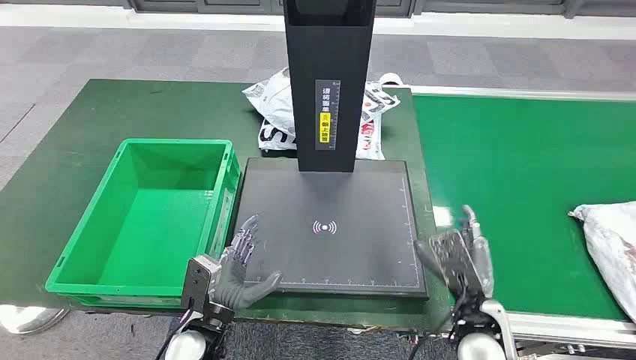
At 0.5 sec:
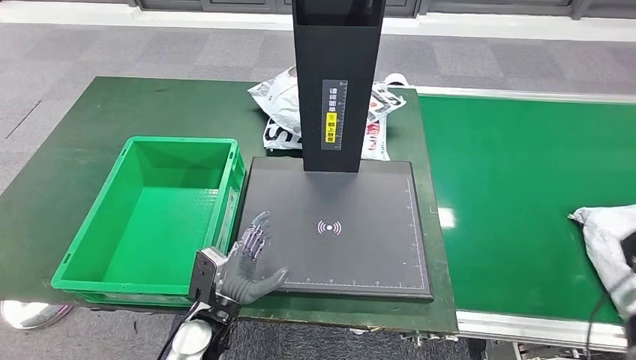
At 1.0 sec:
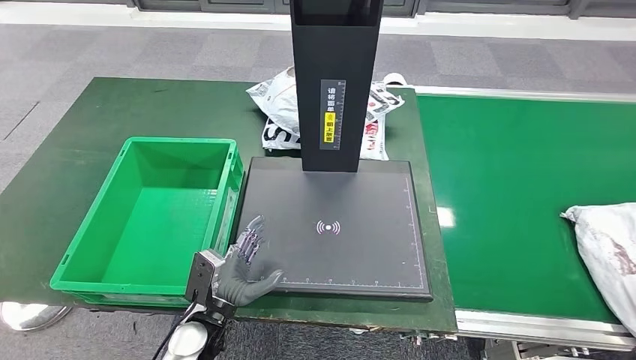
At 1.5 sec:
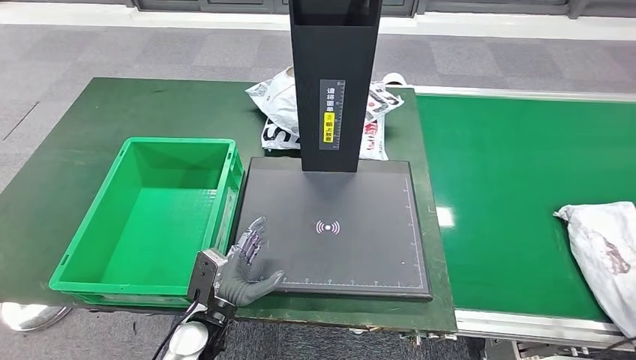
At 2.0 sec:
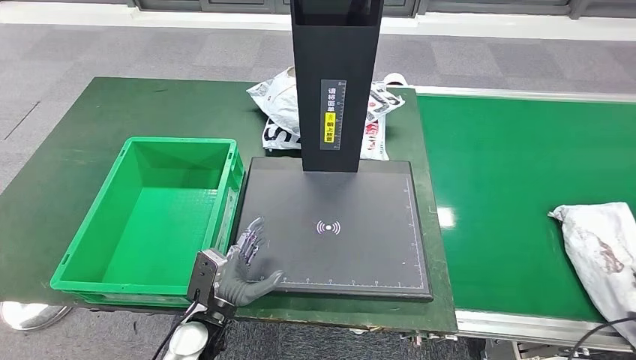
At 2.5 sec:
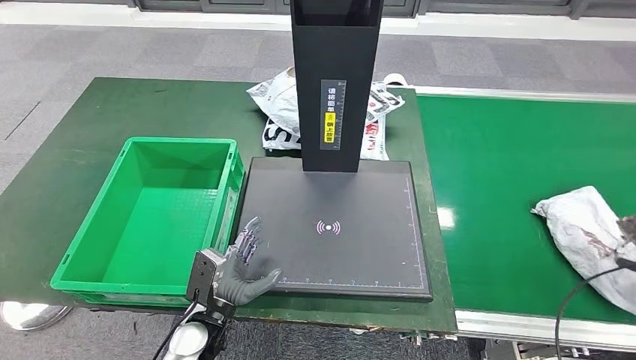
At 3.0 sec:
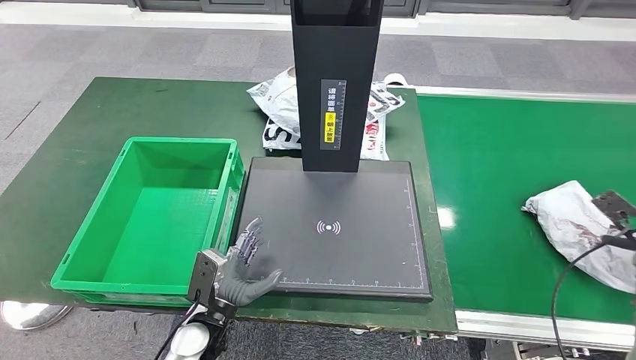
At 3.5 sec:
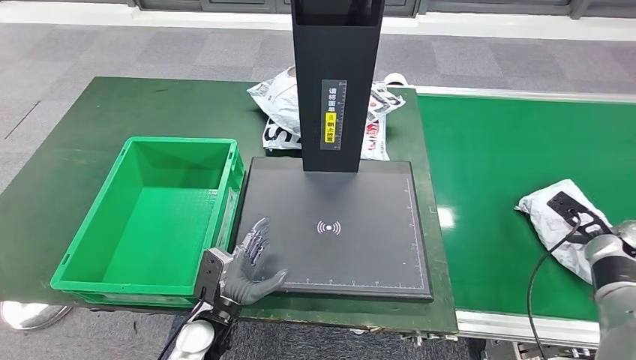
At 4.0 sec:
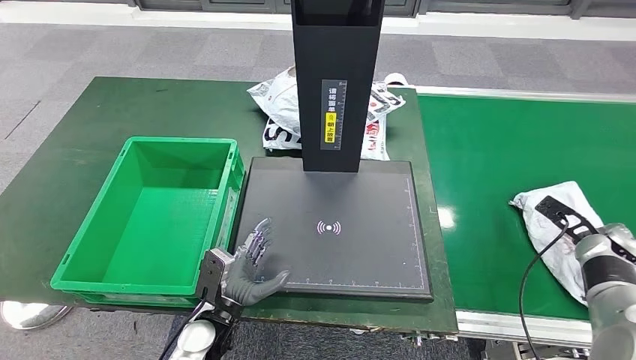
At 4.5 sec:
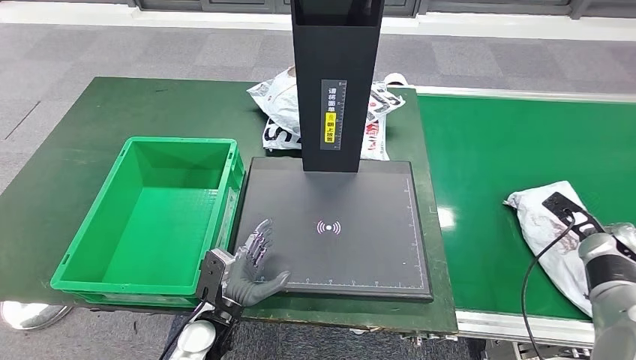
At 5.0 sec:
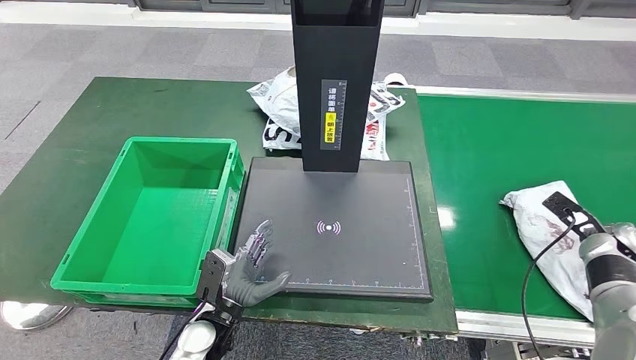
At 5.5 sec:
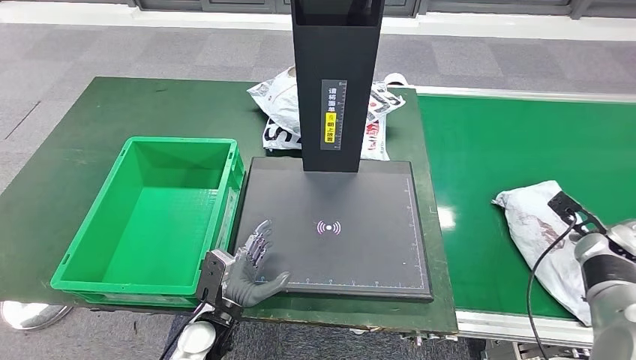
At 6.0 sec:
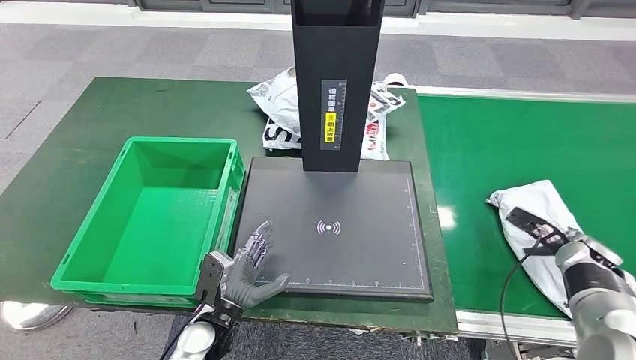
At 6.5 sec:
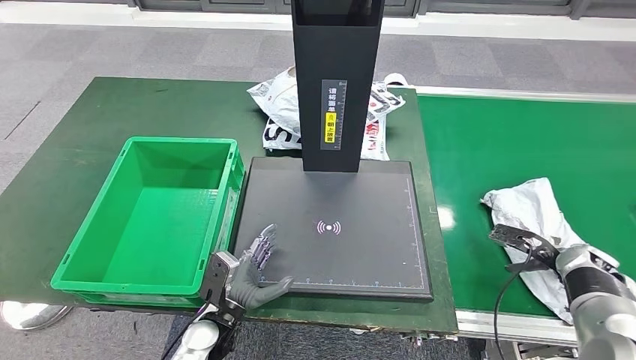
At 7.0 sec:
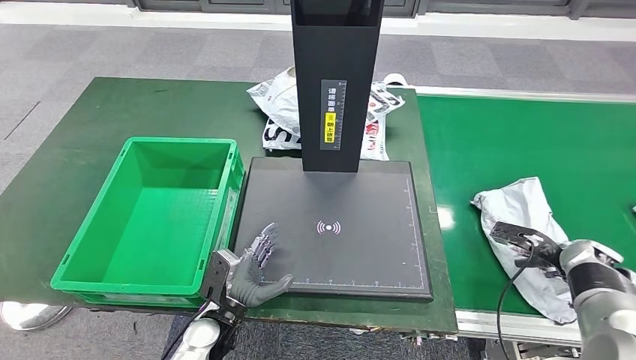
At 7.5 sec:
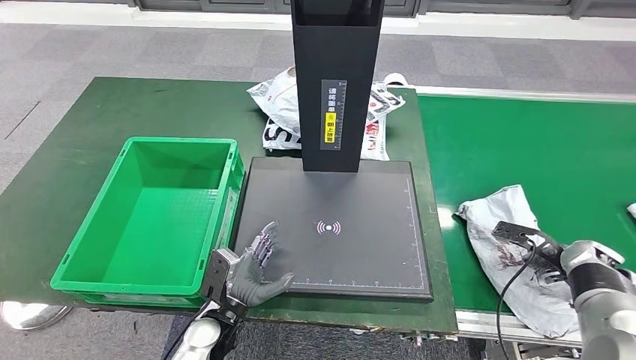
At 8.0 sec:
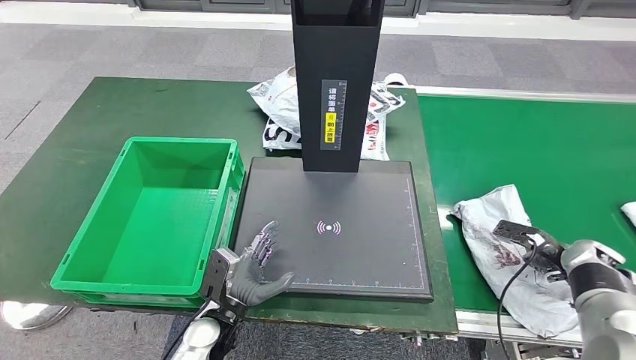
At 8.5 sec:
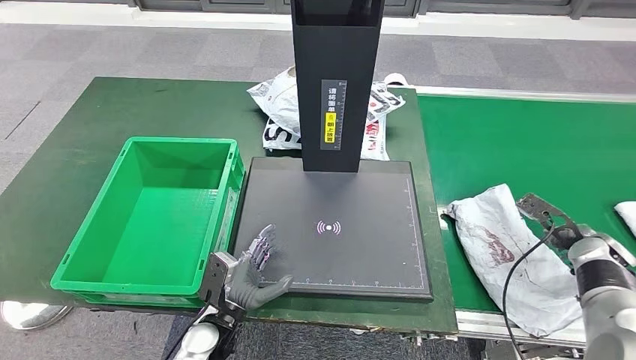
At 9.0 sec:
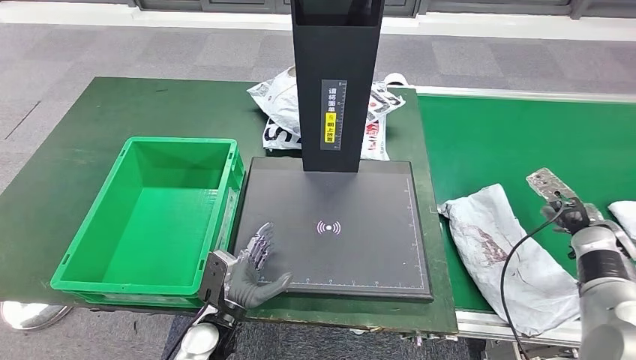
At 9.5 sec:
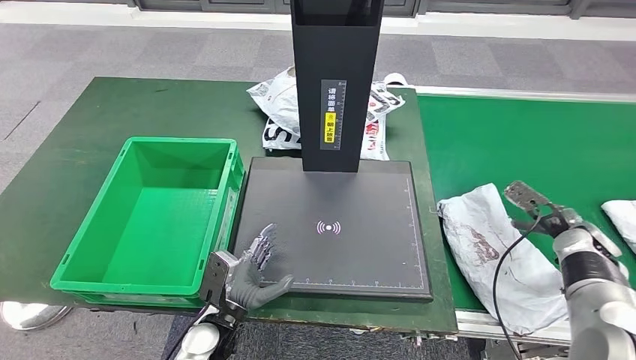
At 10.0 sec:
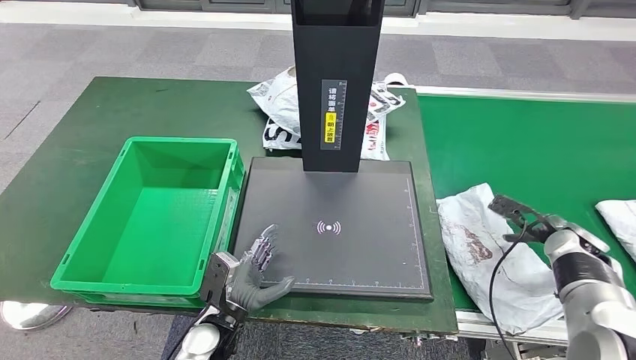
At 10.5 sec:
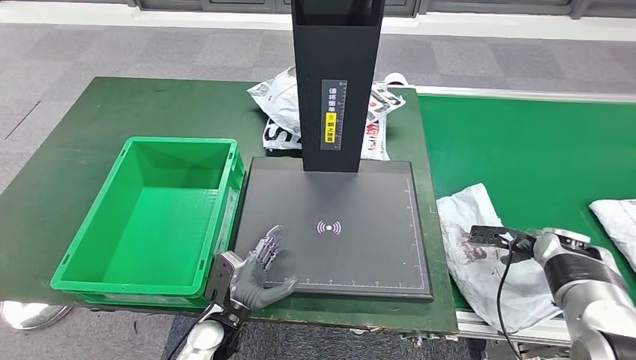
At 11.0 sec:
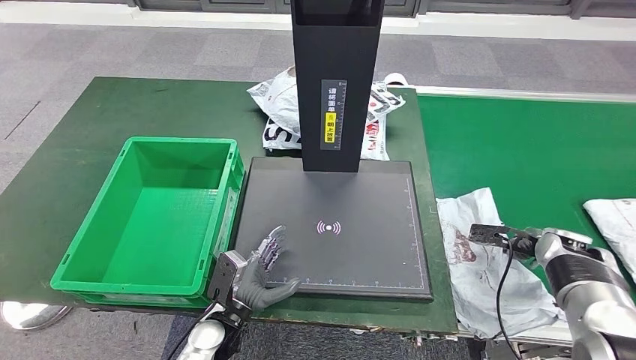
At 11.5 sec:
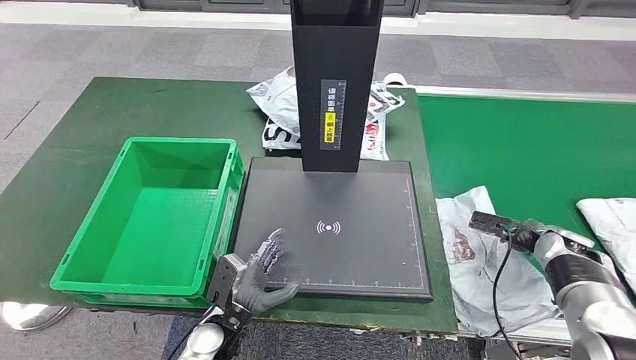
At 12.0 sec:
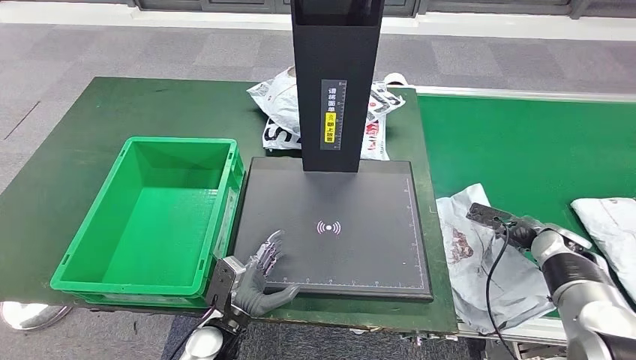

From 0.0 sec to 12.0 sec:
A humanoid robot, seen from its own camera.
From 2.0 sec to 4.0 sec: The right hand travels forward and to the left by approximately 20 cm.
From 4.0 sec to 6.0 sec: The hands move only a little.

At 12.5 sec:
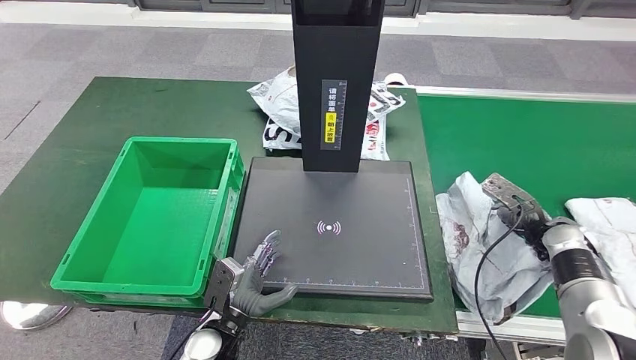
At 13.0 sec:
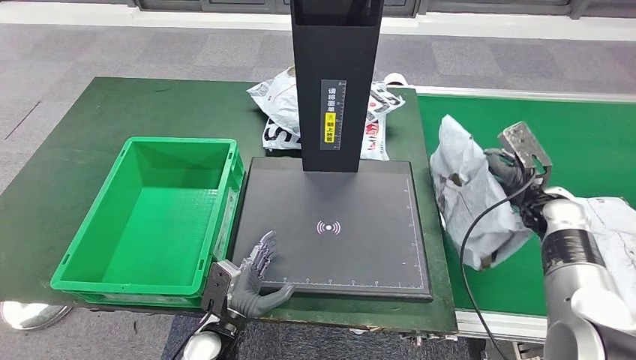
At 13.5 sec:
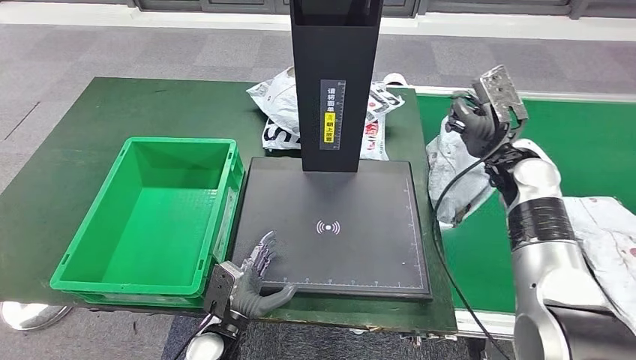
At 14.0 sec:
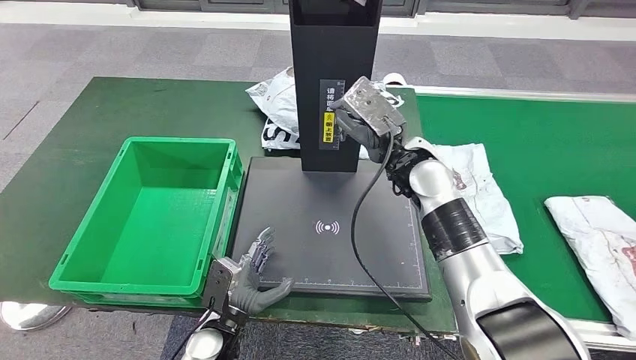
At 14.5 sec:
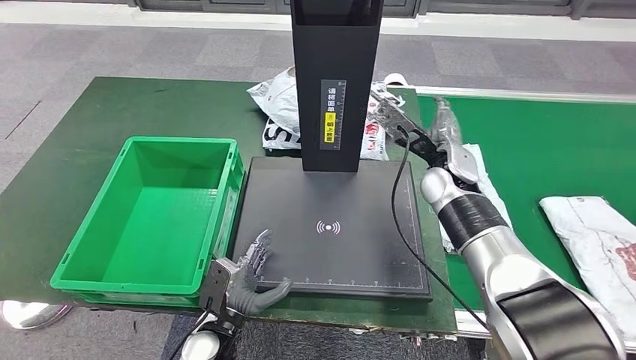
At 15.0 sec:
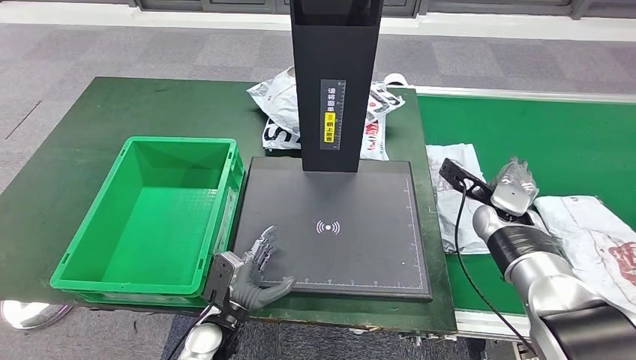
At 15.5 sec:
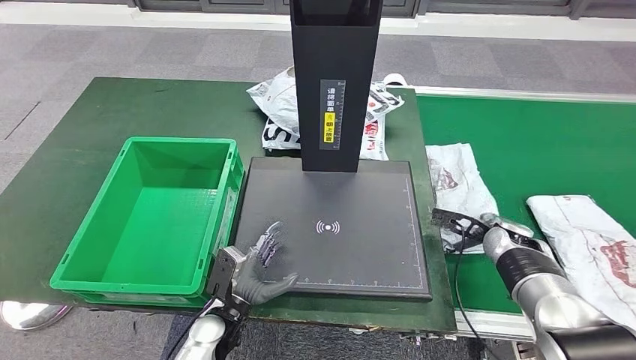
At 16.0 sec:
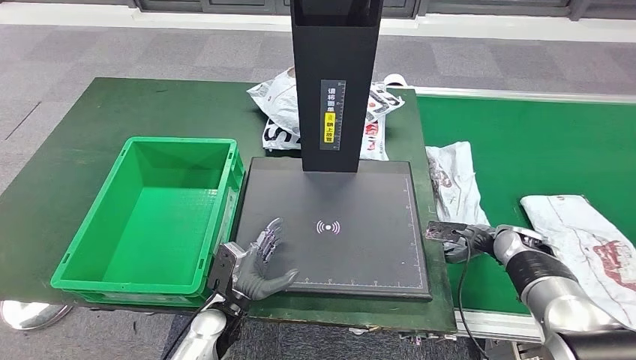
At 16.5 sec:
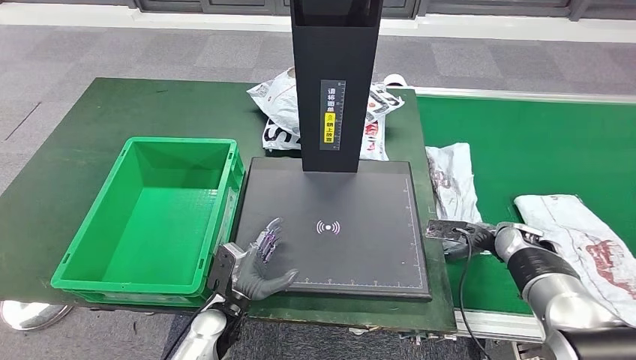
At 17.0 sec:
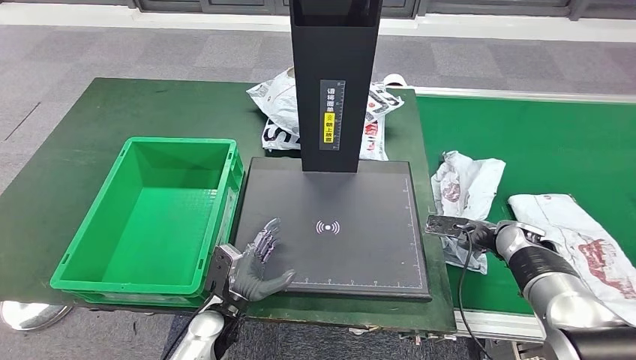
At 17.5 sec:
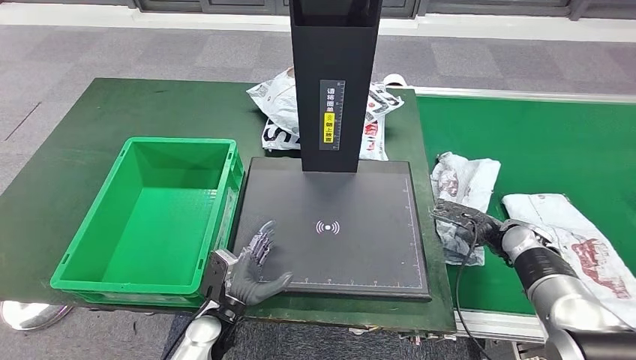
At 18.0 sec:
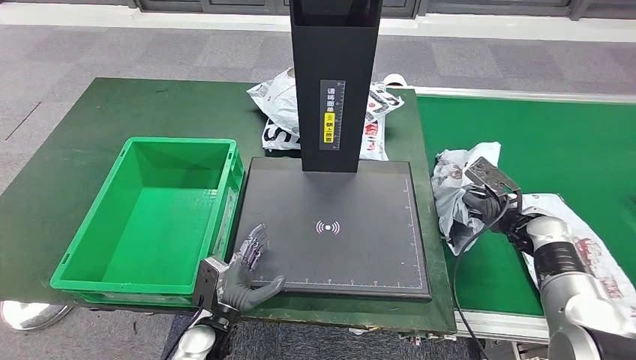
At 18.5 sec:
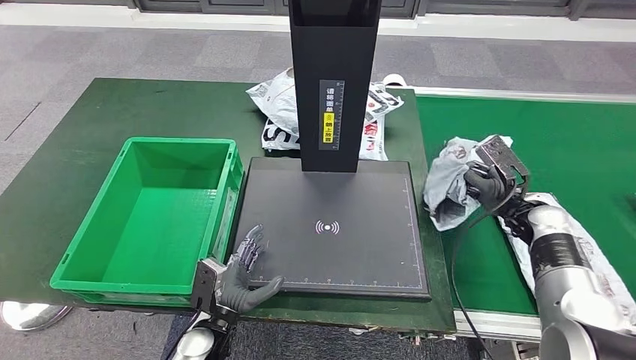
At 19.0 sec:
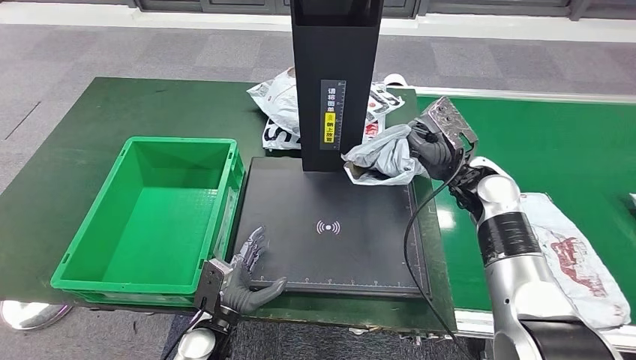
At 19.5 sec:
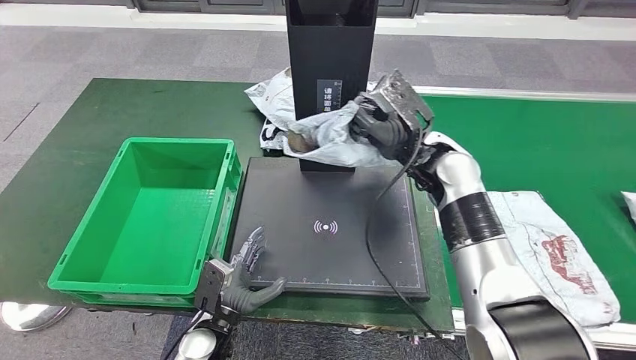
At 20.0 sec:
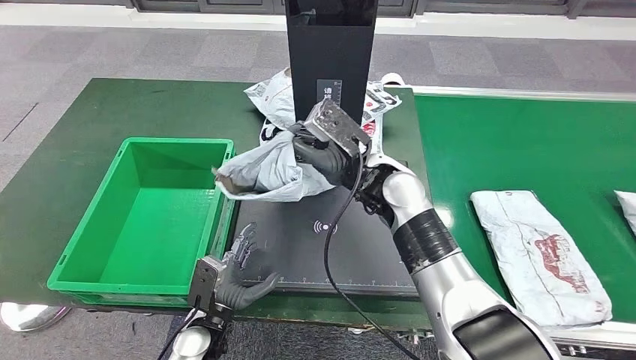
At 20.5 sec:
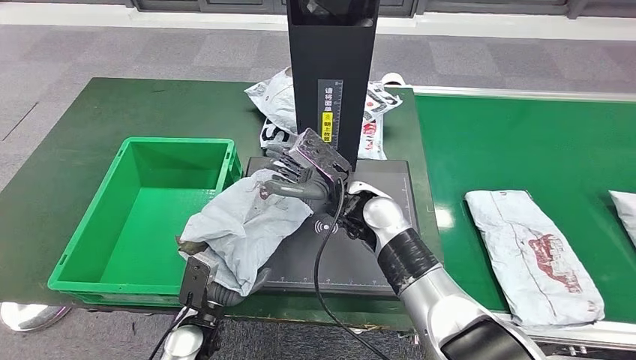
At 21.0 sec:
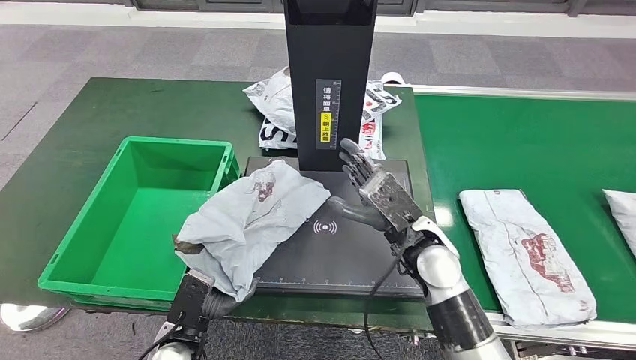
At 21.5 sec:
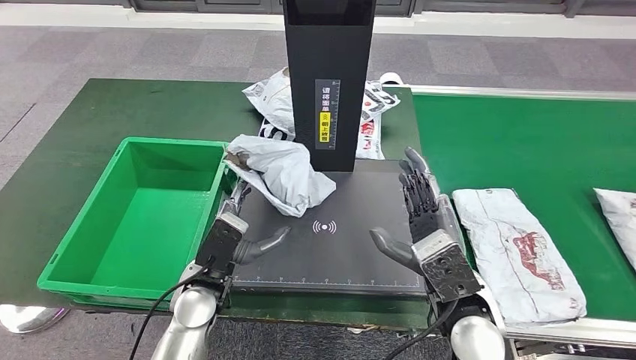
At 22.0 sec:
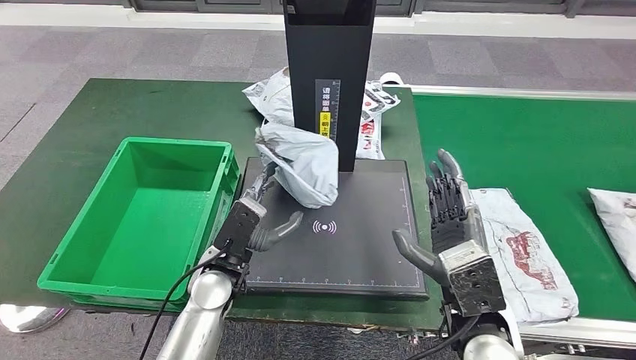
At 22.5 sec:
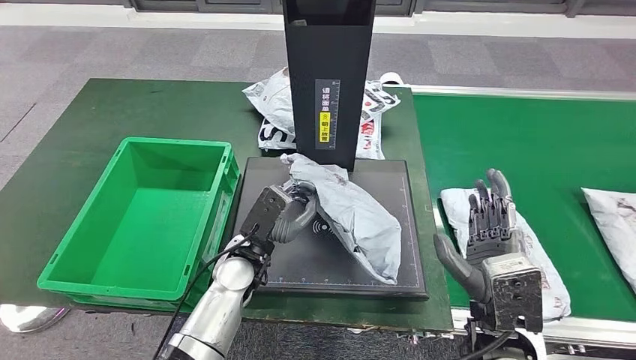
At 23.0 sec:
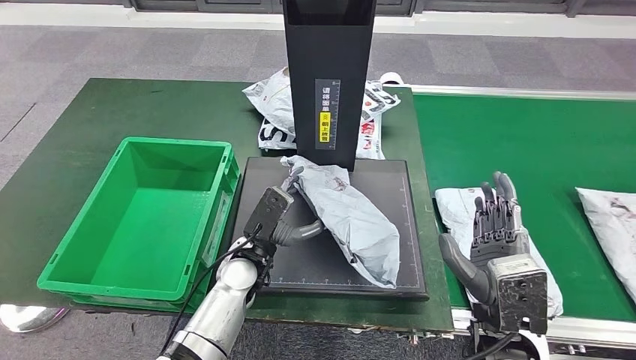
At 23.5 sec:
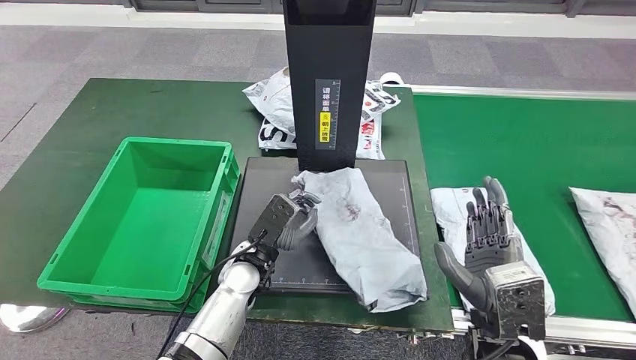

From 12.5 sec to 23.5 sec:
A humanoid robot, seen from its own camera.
Step, from 12.5 sec to 18.5 sec: Take the parcel off the conveyor belt.
From 12.5 sec to 14.5 sec: The right hand goes some 25 cm to the left and upward.
From 14.5 sec to 16.0 sec: The right hand travels to the right, downward and backward by approximately 25 cm.
